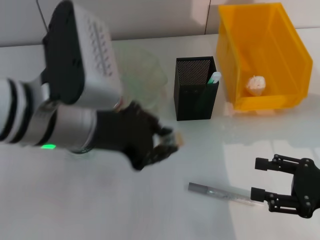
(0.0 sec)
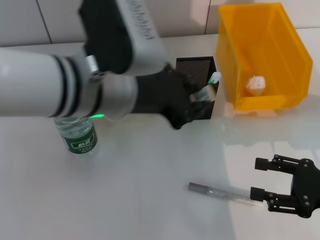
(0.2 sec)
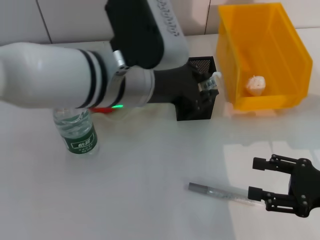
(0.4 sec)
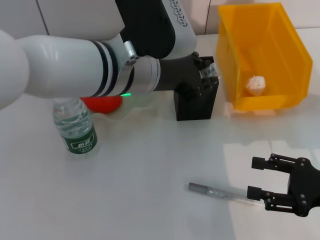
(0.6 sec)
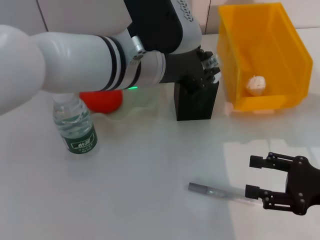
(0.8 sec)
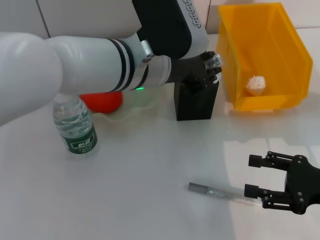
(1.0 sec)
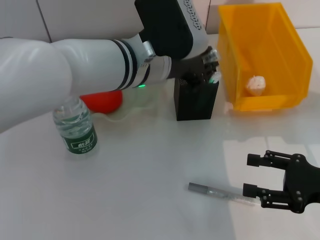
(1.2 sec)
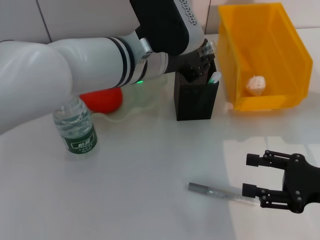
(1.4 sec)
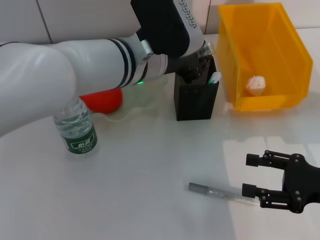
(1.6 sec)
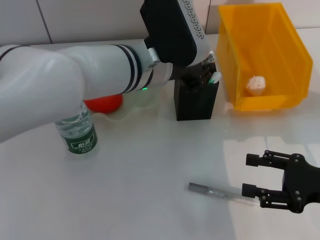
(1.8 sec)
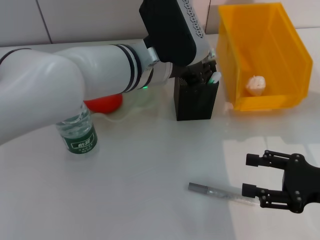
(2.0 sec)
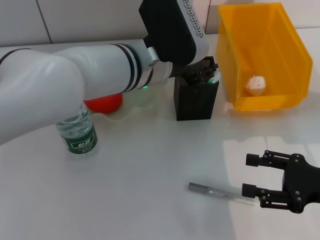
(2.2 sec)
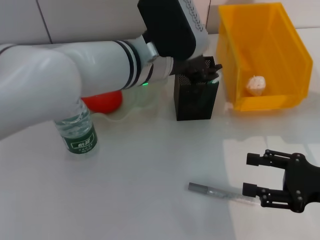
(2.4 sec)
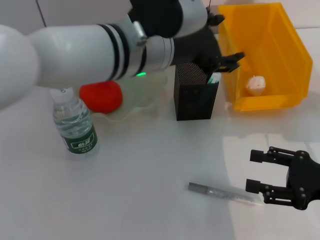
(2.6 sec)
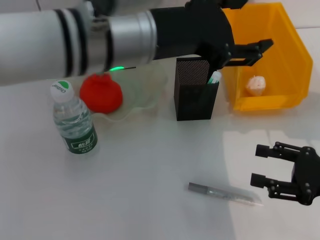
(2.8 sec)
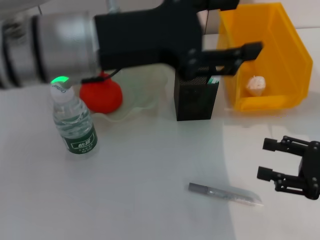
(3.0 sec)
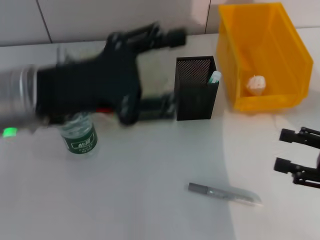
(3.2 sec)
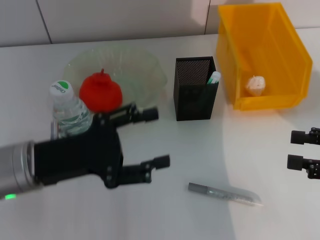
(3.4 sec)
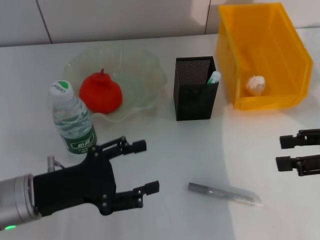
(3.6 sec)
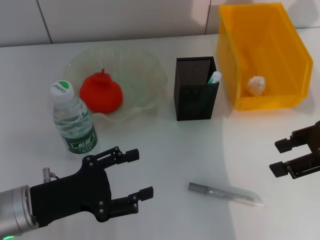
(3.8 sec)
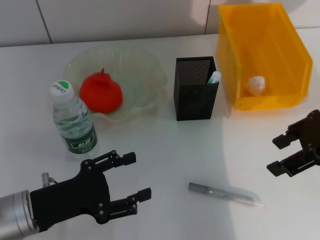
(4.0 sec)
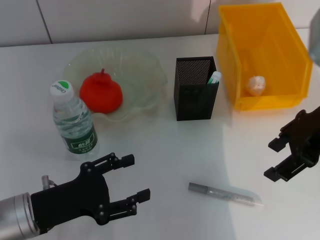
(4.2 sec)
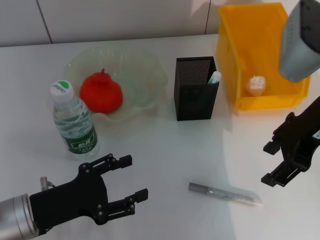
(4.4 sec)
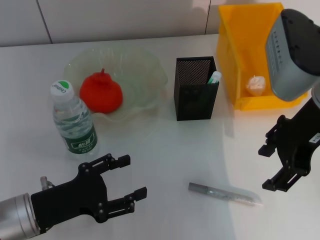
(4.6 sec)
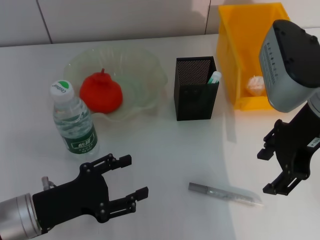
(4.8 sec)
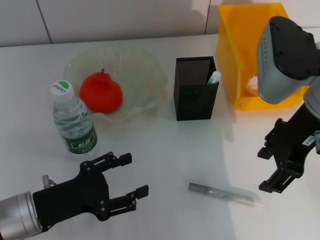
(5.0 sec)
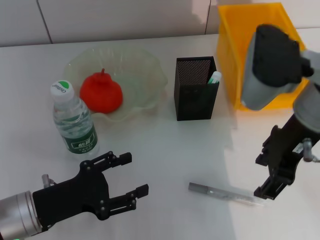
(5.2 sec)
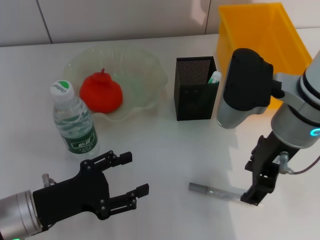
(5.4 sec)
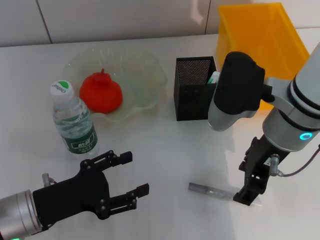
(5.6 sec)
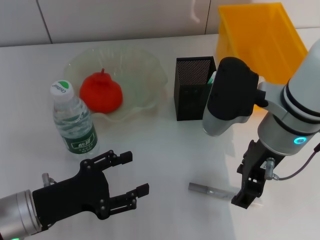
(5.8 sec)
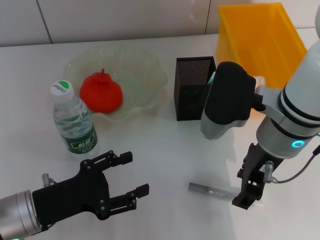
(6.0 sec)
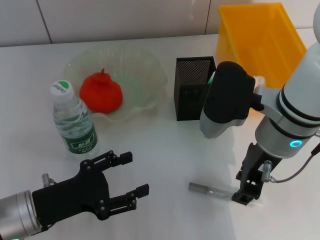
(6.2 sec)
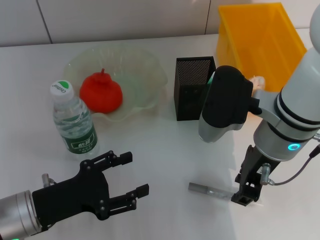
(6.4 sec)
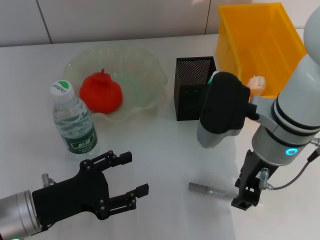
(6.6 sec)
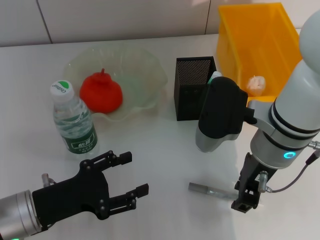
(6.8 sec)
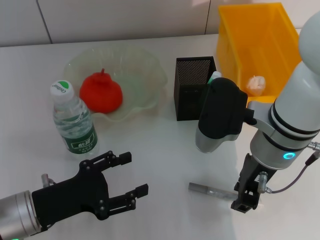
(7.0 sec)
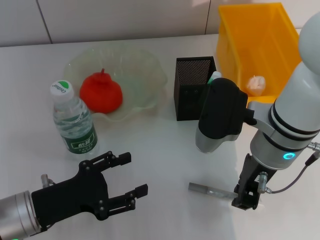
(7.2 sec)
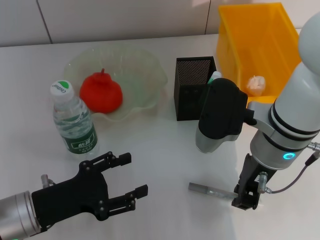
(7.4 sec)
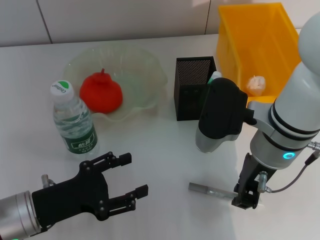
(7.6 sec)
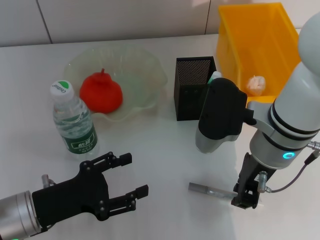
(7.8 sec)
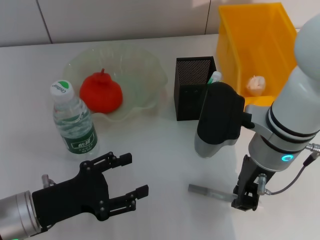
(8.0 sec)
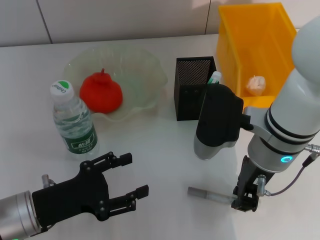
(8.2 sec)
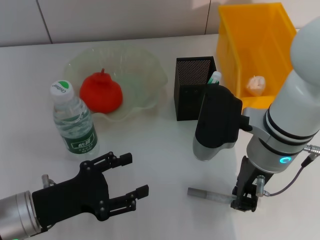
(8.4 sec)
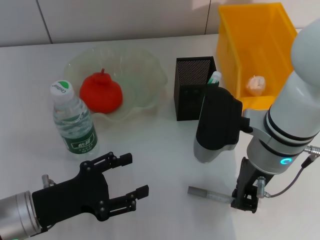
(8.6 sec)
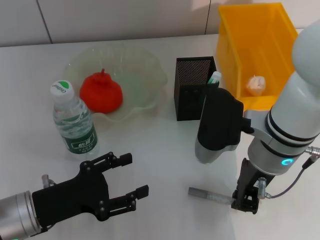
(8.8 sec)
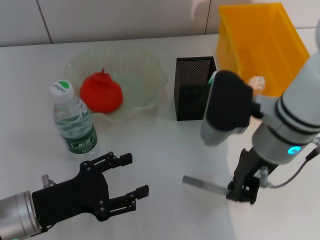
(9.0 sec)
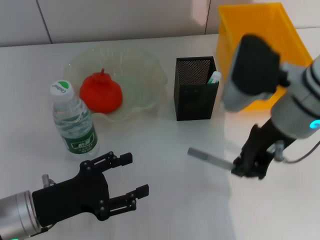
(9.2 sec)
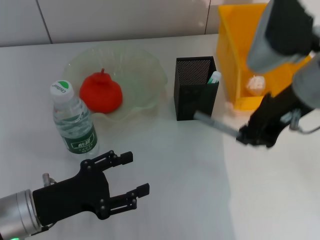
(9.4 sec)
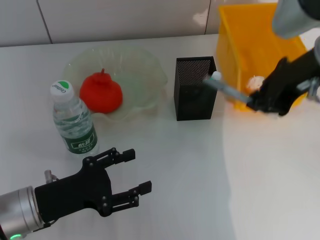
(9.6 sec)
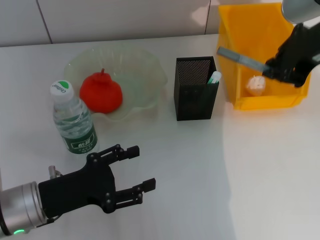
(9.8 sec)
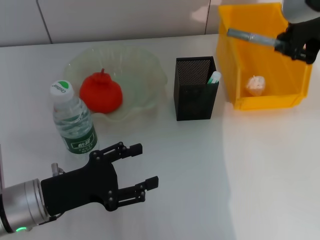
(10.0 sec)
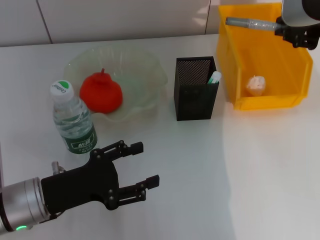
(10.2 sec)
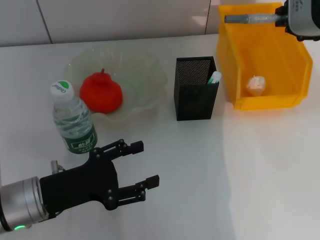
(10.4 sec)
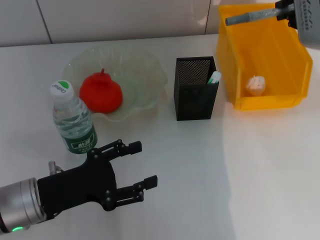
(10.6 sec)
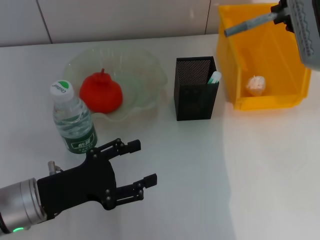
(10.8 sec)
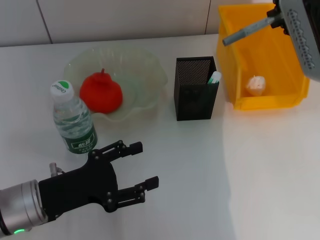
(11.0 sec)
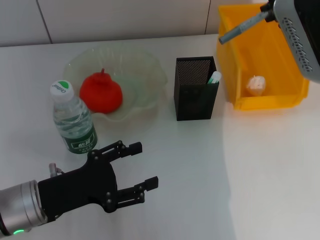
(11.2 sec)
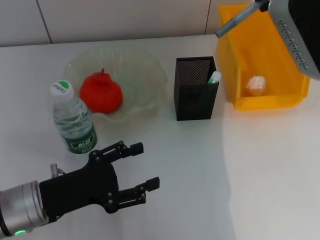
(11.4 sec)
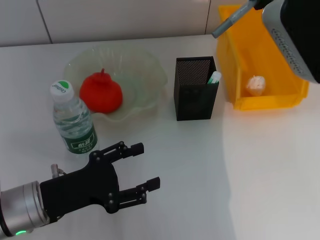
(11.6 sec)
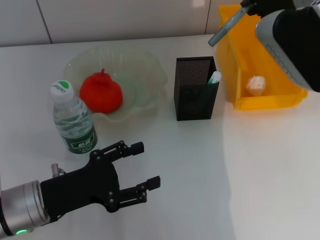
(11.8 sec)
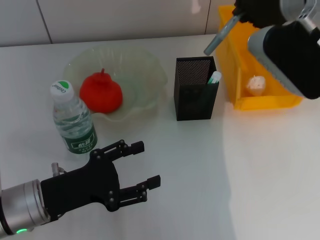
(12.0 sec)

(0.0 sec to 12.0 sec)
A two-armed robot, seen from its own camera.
Step, 0.0 sec - 2.2 sec: Place the eraser into the pen holder with the left hand.
Step, 2.6 sec - 8.6 sec: Grab the gray glue with the right hand.
0.0 sec - 1.6 sec: The left gripper heads forward and to the right, covering about 10 cm.
1.6 sec - 3.0 sec: The left gripper shifts roughly 15 cm to the left, upward and backward, and opens up.
3.0 sec - 4.4 sec: The left gripper goes about 25 cm downward, to the left and backward. Meanwhile the right gripper travels upward, to the left and forward by approximately 20 cm.
4.4 sec - 6.0 sec: The right gripper heads to the left and downward, covering some 10 cm.
6.0 sec - 7.6 sec: The right gripper closes its fingers.
7.6 sec - 9.0 sec: The grippers move only a little.
9.0 sec - 10.4 sec: The right gripper travels upward by about 15 cm.
10.4 sec - 12.0 sec: The right gripper is displaced downward by roughly 5 cm.

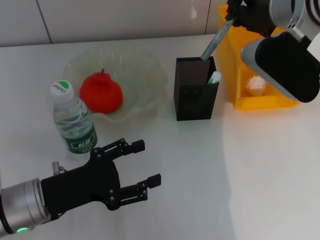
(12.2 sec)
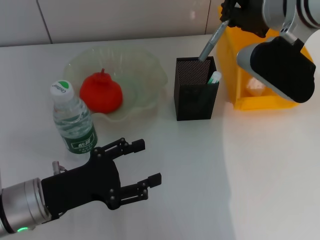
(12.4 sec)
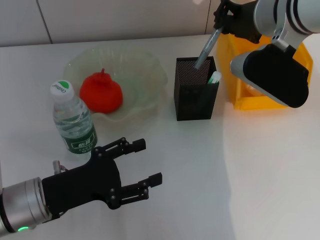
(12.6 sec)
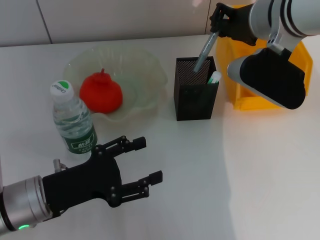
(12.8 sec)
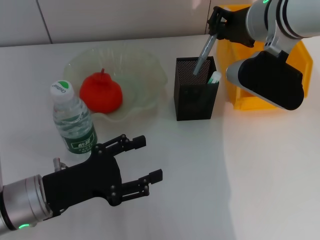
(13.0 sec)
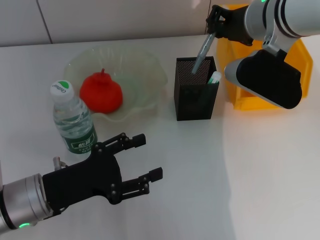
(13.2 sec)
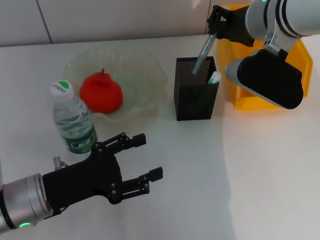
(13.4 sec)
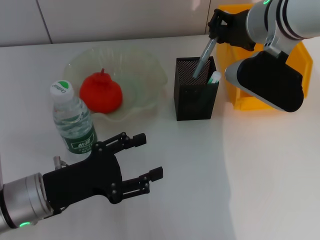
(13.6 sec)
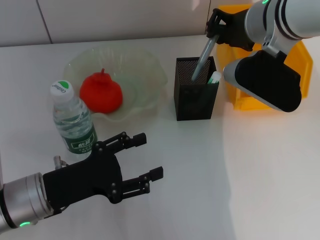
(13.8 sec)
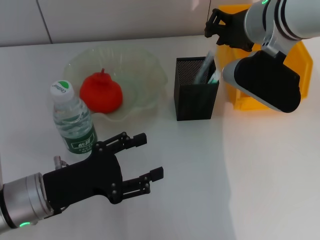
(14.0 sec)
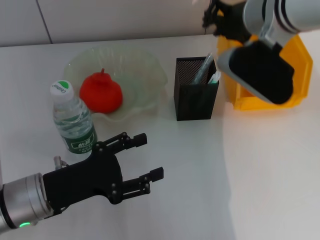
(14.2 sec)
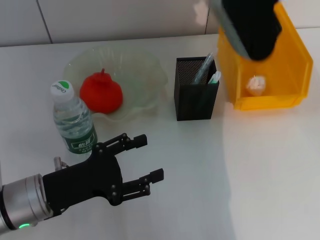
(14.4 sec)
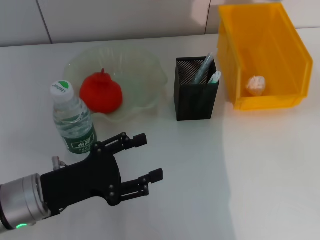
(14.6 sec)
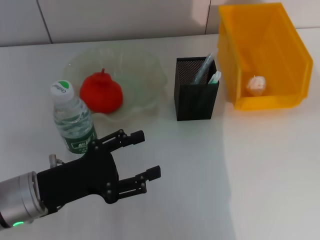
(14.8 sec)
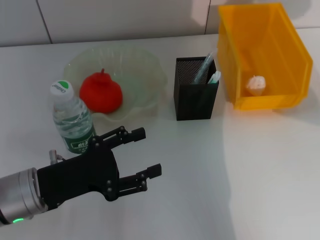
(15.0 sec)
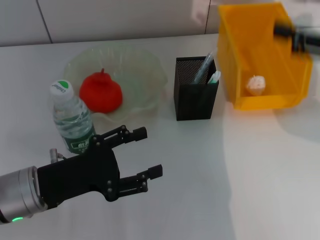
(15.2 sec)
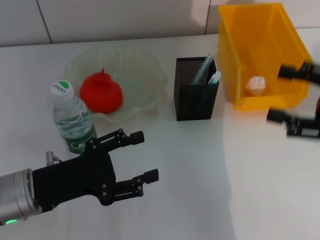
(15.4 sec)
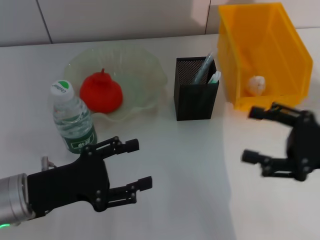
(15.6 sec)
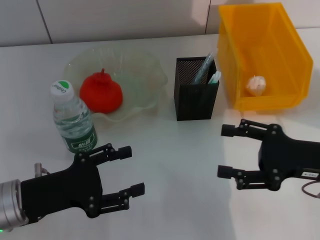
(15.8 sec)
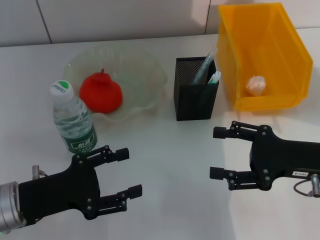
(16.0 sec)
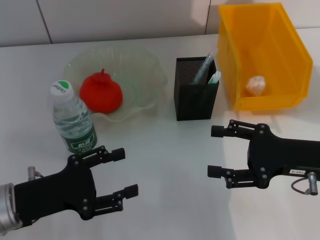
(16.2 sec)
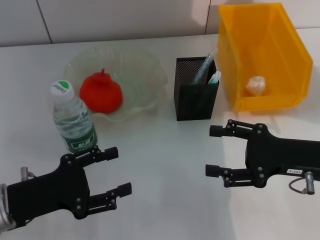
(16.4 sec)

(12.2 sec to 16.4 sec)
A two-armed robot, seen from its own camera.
12.2 sec - 13.6 sec: The grippers move only a little.
13.6 sec - 15.0 sec: The right gripper moves to the right, upward and backward, approximately 20 cm.
15.0 sec - 16.4 sec: The right gripper moves downward, roughly 20 cm, and opens up.
